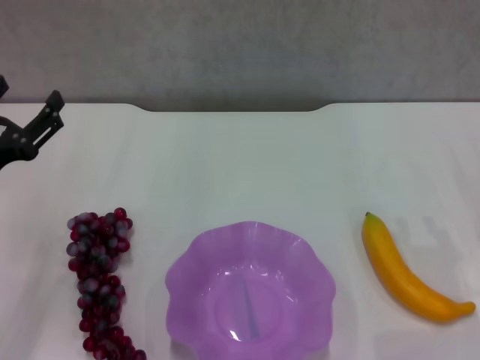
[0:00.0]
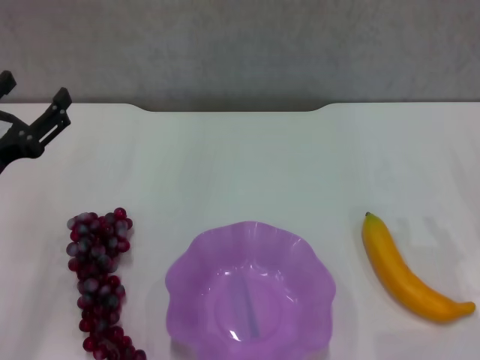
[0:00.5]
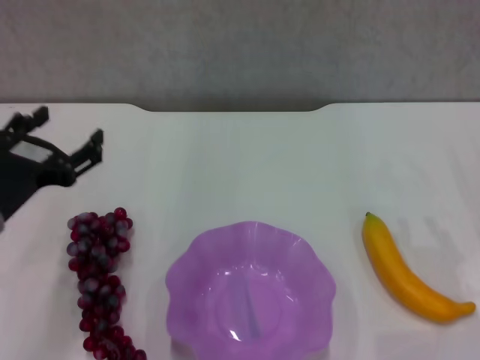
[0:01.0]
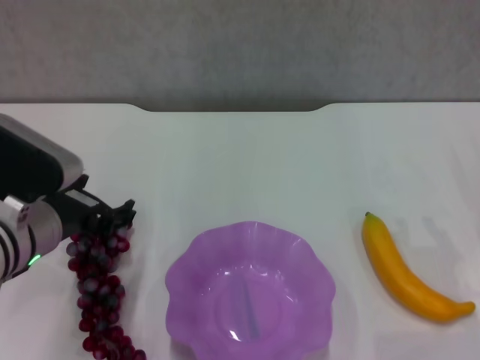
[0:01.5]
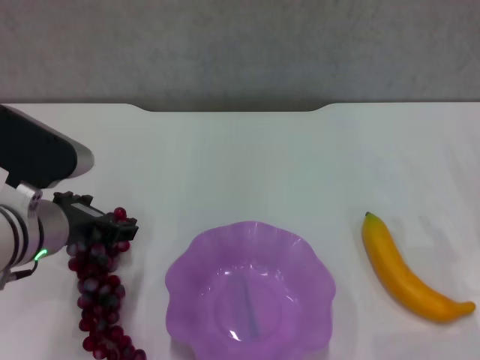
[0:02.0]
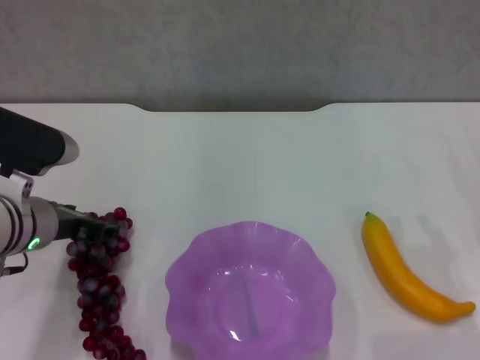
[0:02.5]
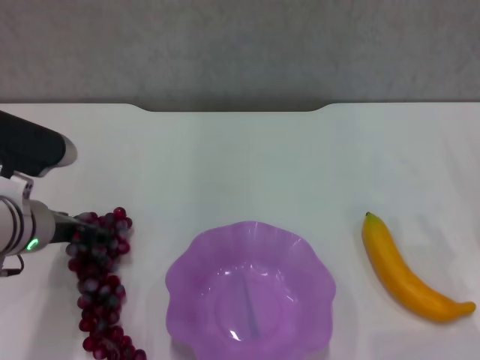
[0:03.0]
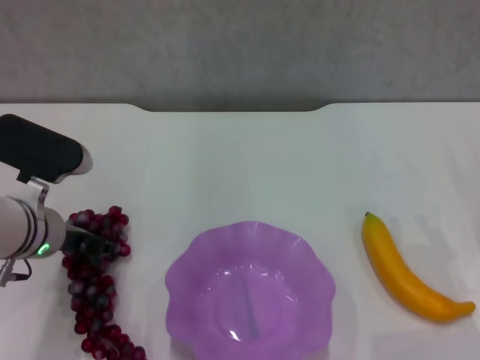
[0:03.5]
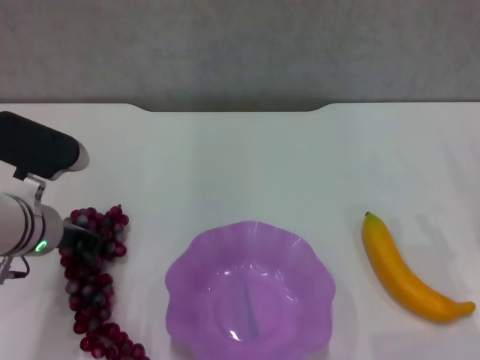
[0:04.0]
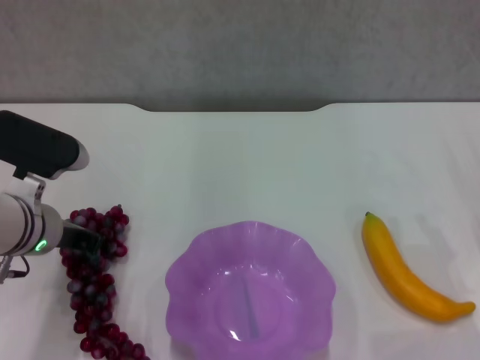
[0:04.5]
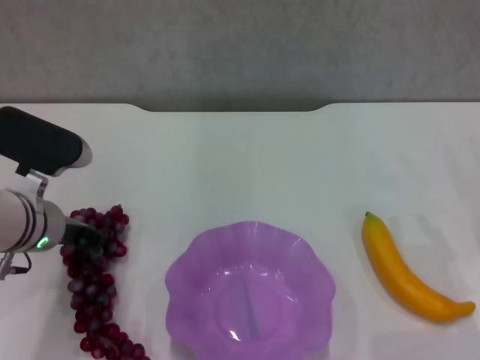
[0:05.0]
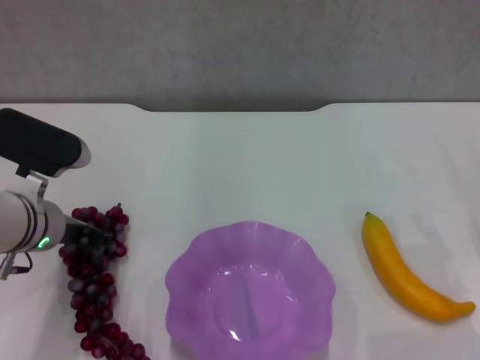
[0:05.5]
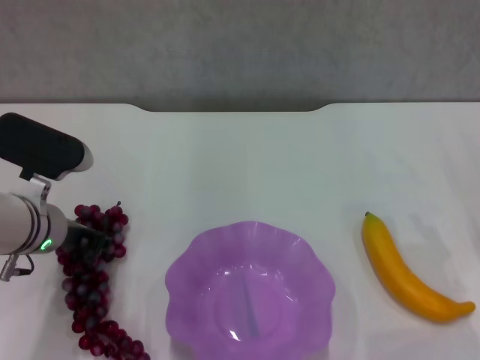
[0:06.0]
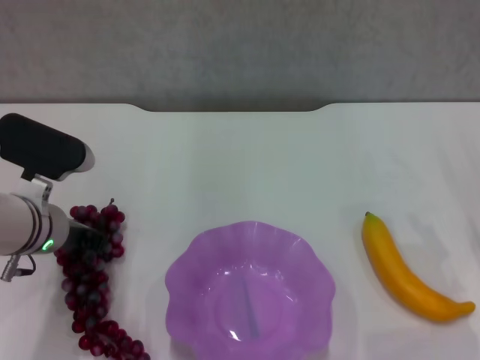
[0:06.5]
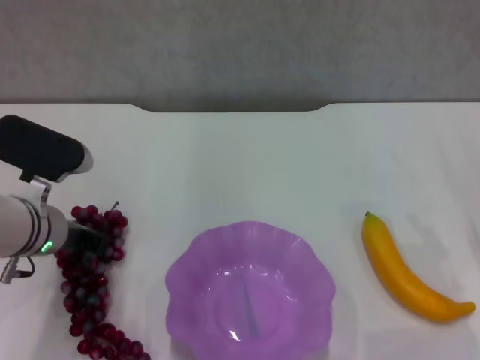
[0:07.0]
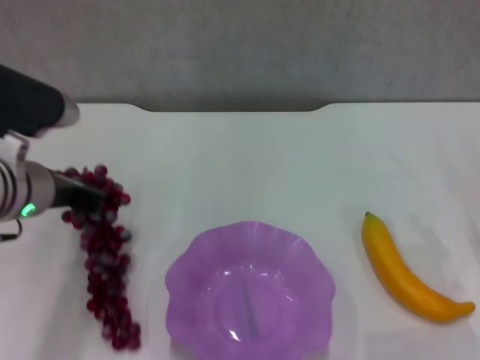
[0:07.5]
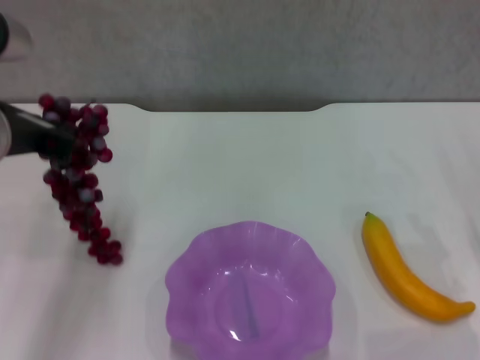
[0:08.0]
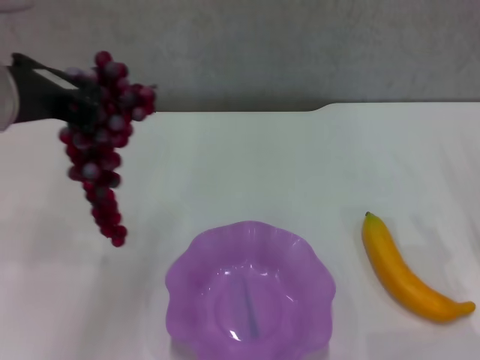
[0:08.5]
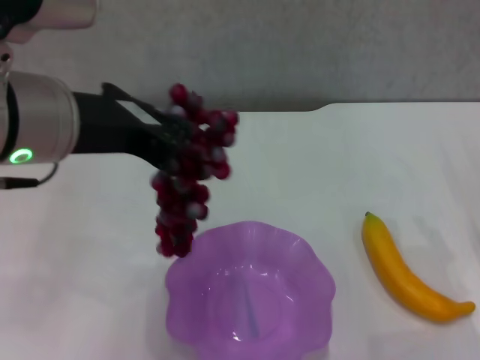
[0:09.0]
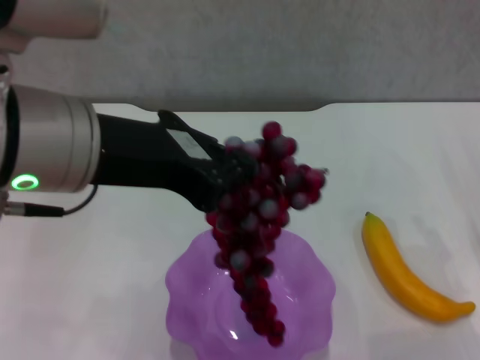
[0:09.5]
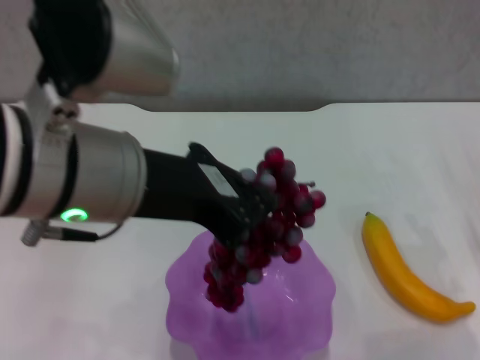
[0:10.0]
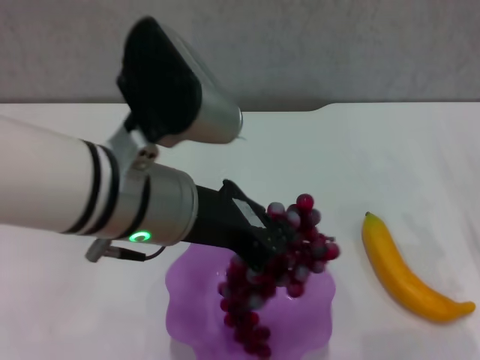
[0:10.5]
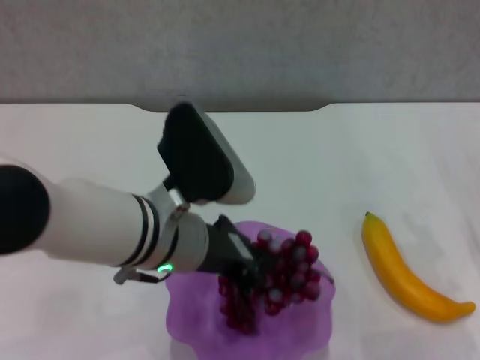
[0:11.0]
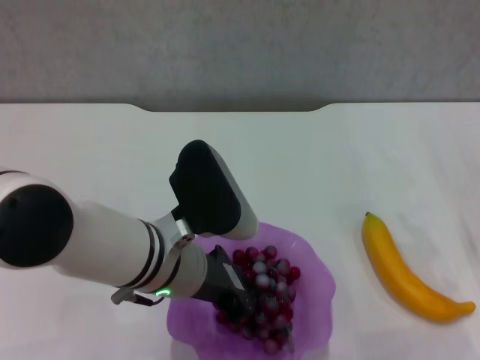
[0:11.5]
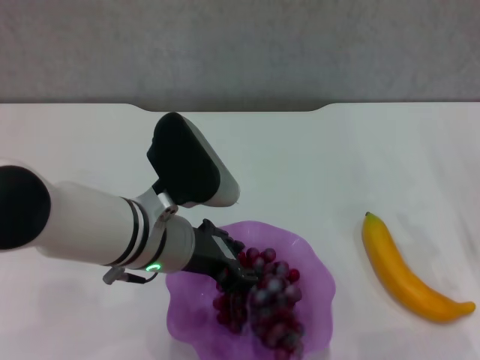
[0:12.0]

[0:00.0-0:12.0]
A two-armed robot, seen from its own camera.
Step, 0:00.0 to 0:06.5: Grasp the grape with left gripper.
0:00.0 to 0:02.0: The left gripper moves to the right, roughly 10 cm.
0:02.0 to 0:04.0: The left gripper closes.
0:04.0 to 0:06.0: The left gripper closes, then opens again.
0:06.0 to 0:08.0: The left gripper goes some 15 cm upward, and closes.
0:08.0 to 0:10.0: The left gripper is displaced to the right and backward by some 10 cm.
0:10.0 to 0:12.0: The left gripper shifts approximately 15 cm downward and forward.

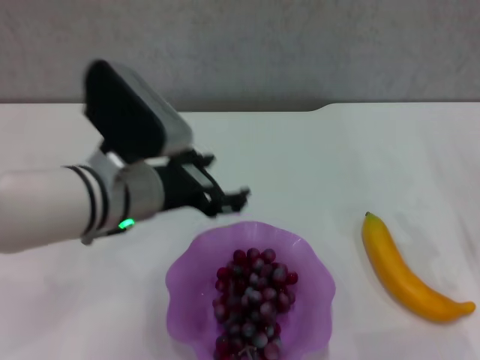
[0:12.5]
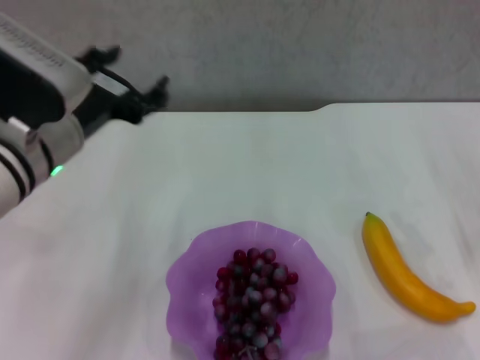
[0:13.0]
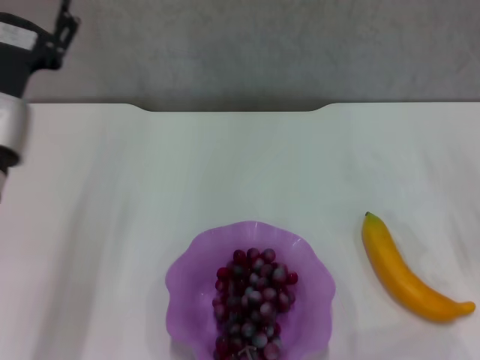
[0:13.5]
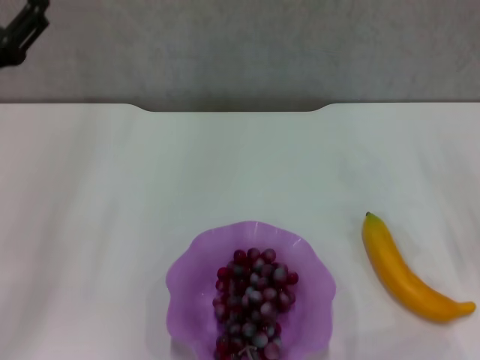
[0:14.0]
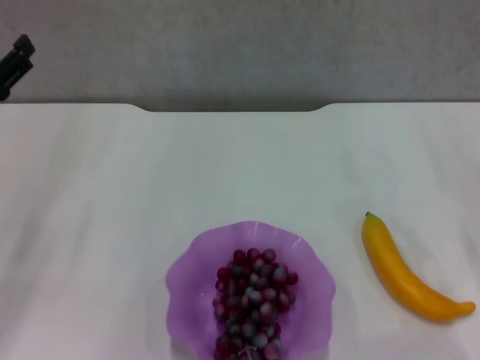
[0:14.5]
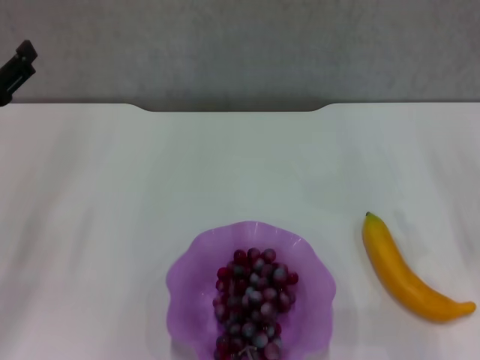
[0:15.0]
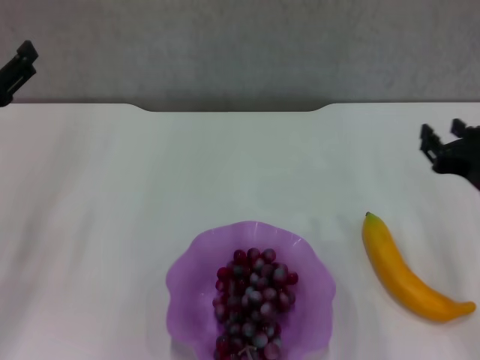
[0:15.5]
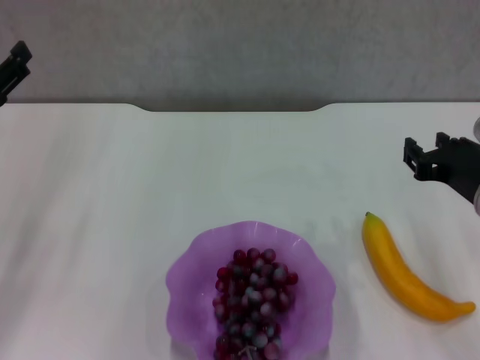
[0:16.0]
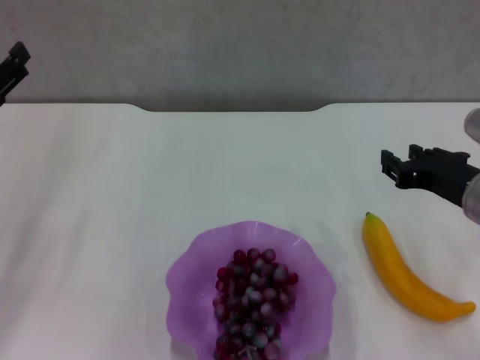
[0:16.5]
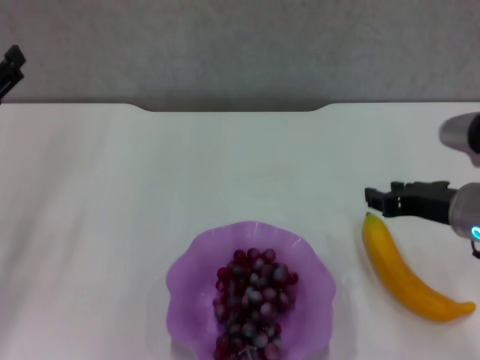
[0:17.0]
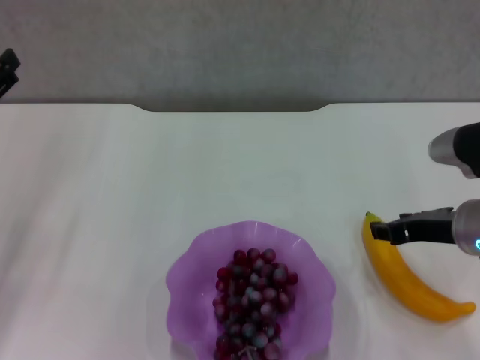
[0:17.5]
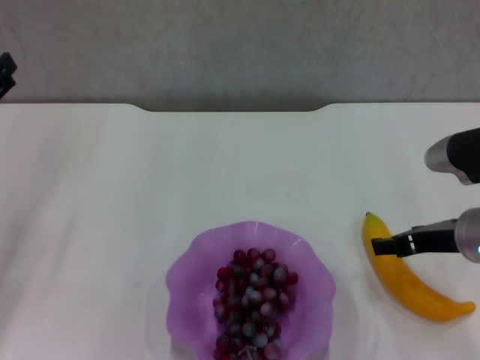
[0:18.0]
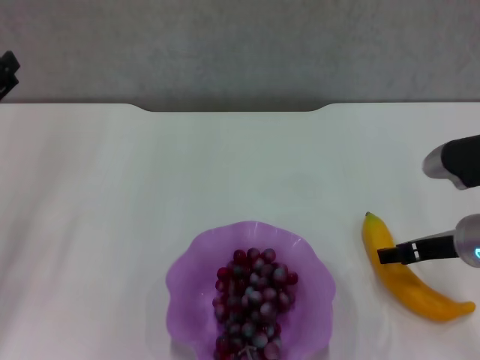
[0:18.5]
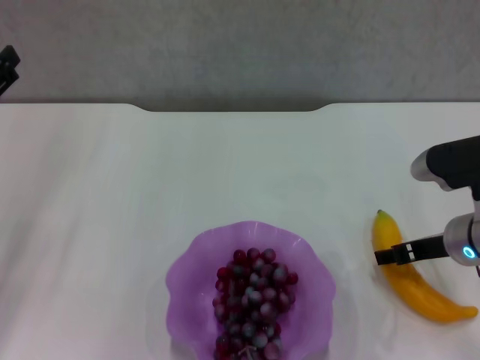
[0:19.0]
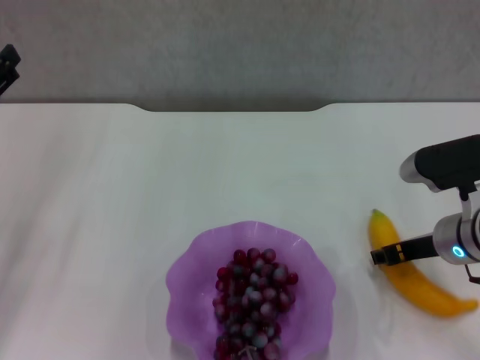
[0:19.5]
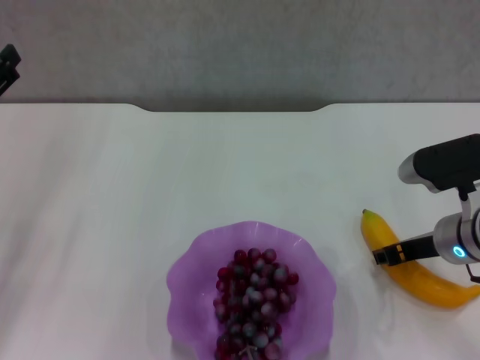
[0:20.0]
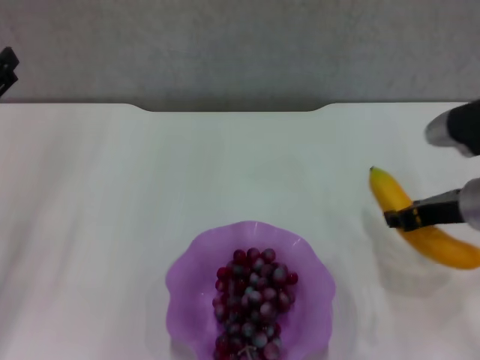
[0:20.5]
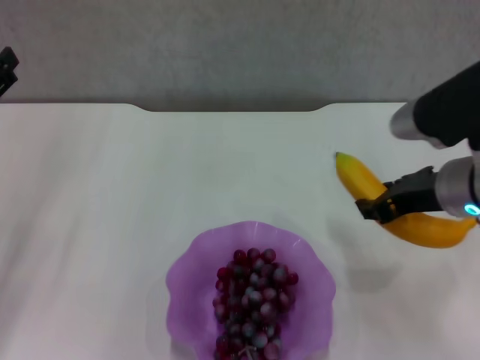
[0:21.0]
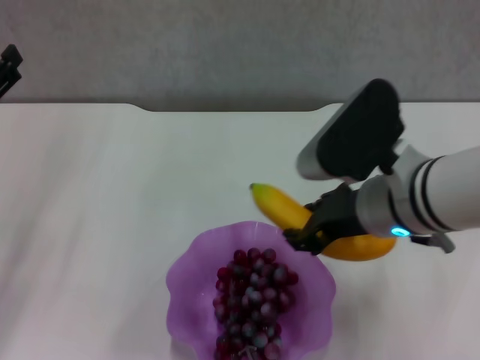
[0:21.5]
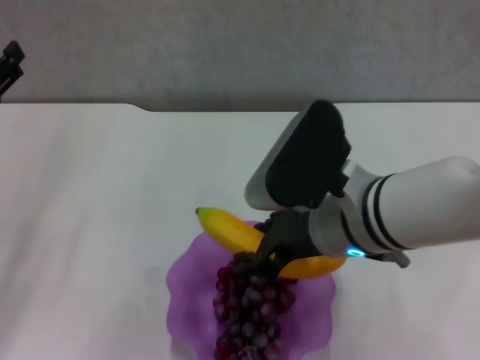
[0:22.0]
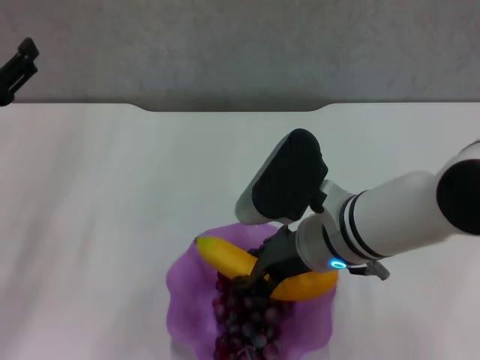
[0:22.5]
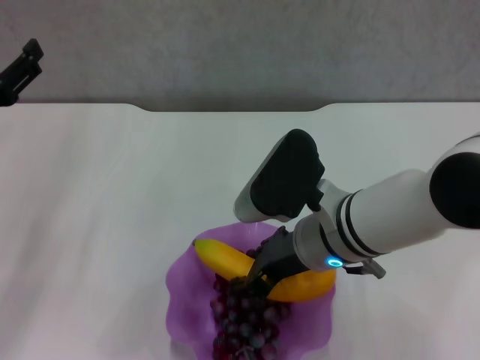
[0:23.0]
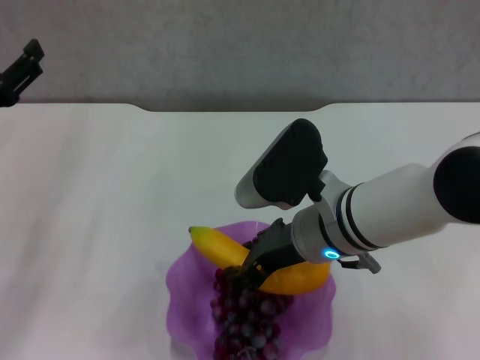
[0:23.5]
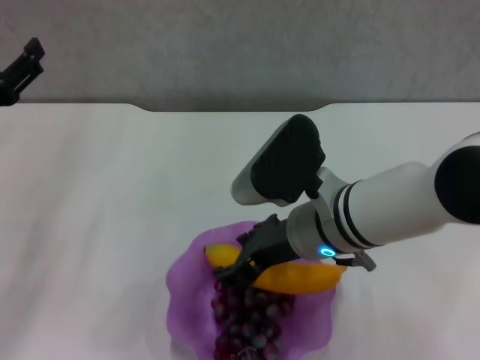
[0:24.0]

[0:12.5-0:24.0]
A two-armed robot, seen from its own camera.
Step, 0:12.5 to 0:20.0: Grasp the banana with right gripper.
0:12.5 to 0:14.5: The left gripper is displaced to the left by about 20 cm.
0:14.5 to 0:16.5: The right gripper goes approximately 10 cm to the left.
0:16.5 to 0:18.5: The right gripper opens.
0:18.5 to 0:20.0: The right gripper closes up.
0:20.0 to 0:22.0: The right gripper moves to the left and upward, some 15 cm.
0:22.0 to 0:24.0: The right gripper opens up.

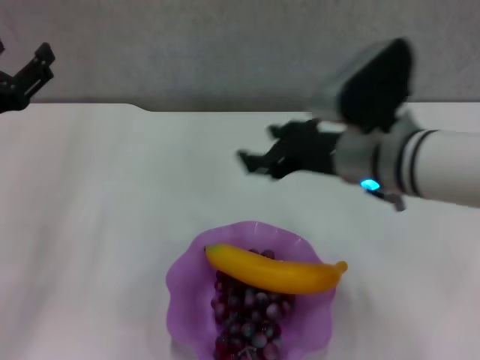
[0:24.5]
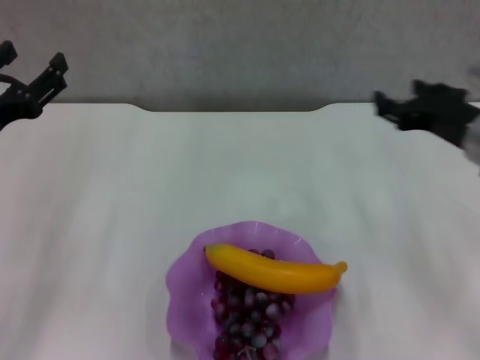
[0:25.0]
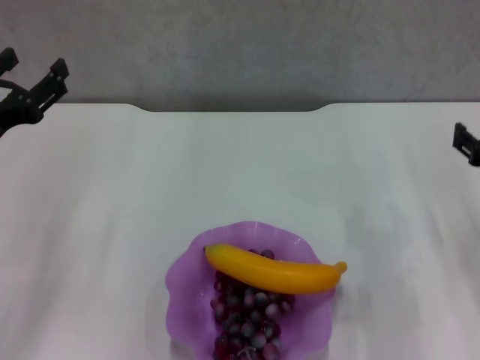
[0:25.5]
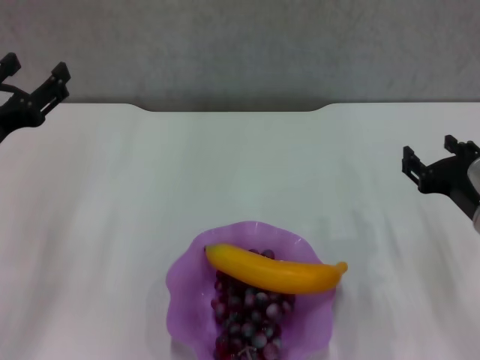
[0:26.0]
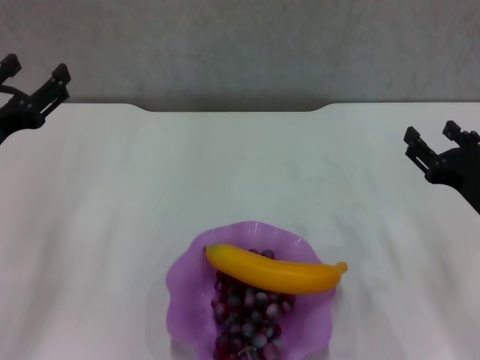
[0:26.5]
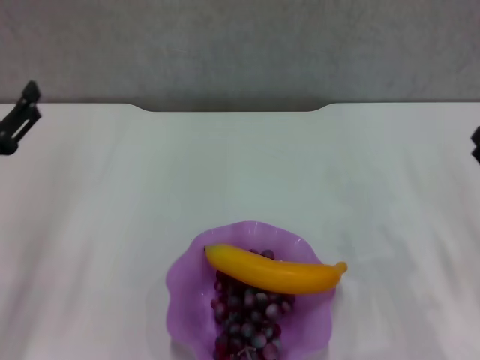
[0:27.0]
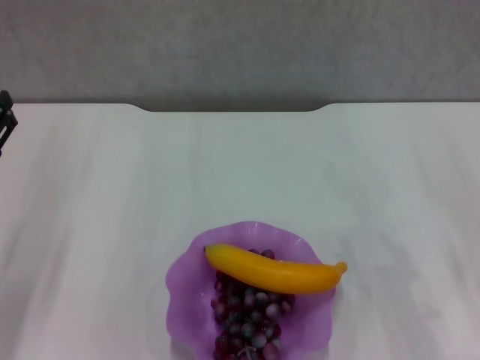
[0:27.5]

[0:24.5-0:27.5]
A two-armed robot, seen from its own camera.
0:24.5 to 0:26.0: The right gripper moves to the right and downward, about 15 cm.
0:26.0 to 0:27.5: The left gripper shifts by roughly 5 cm; the right gripper travels to the right by approximately 5 cm.
